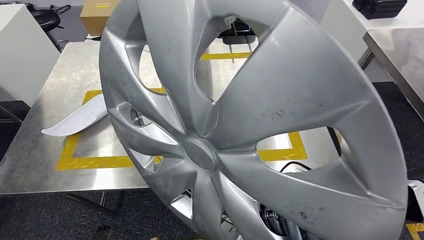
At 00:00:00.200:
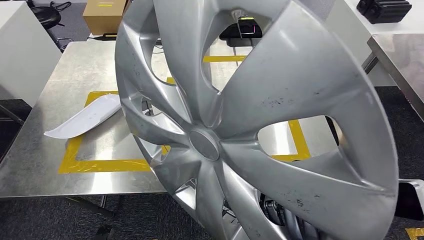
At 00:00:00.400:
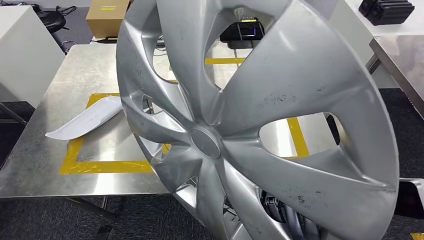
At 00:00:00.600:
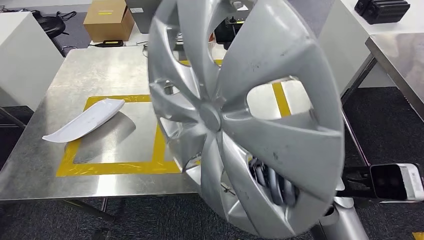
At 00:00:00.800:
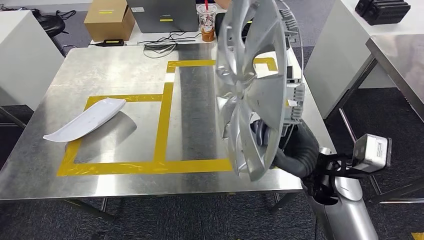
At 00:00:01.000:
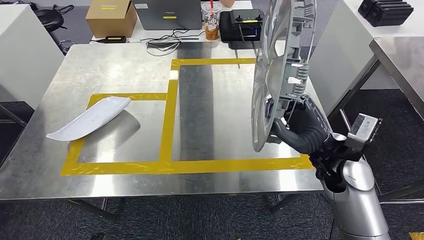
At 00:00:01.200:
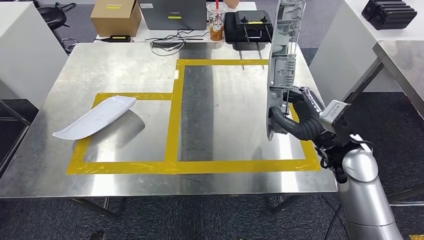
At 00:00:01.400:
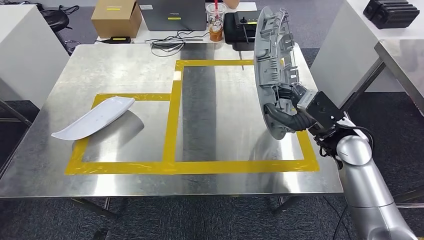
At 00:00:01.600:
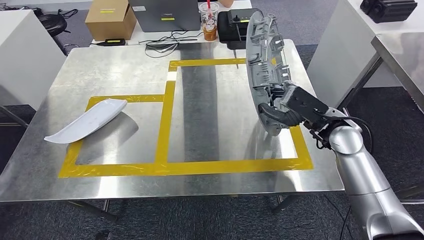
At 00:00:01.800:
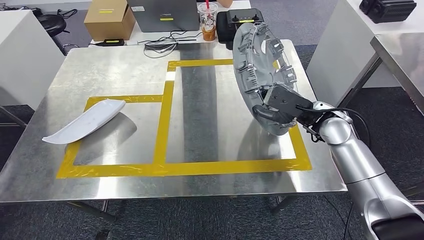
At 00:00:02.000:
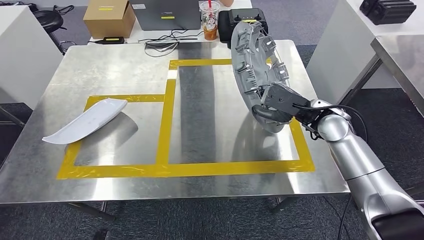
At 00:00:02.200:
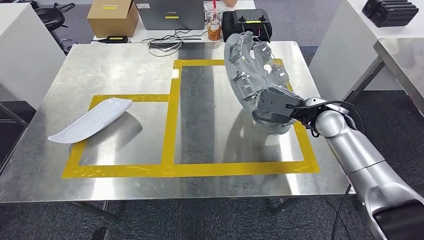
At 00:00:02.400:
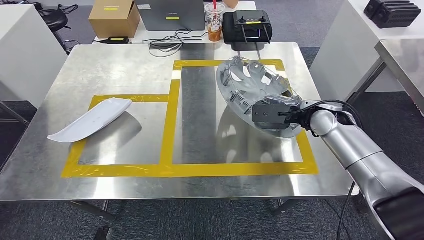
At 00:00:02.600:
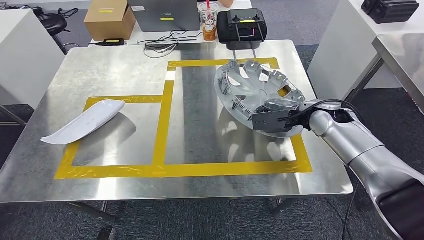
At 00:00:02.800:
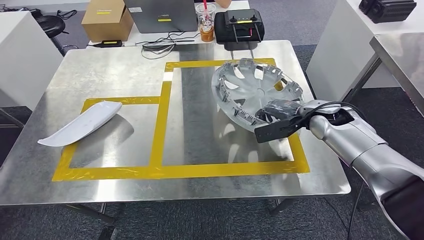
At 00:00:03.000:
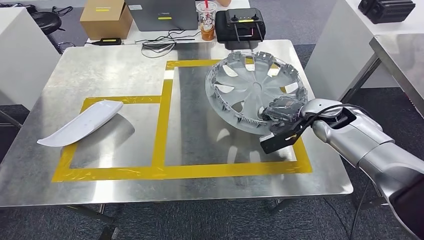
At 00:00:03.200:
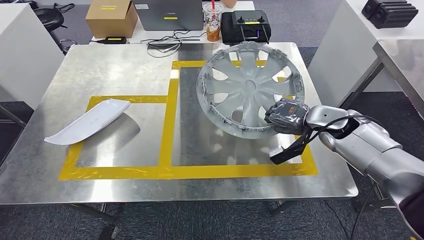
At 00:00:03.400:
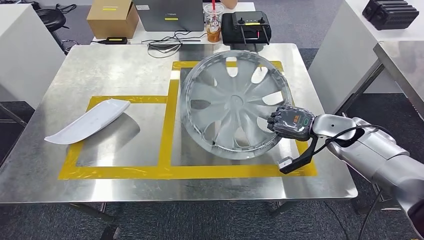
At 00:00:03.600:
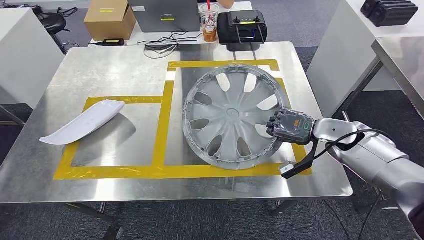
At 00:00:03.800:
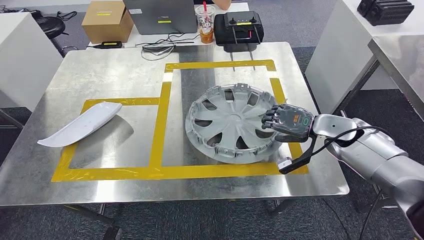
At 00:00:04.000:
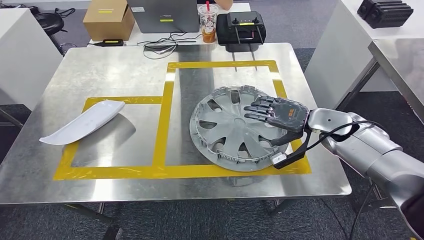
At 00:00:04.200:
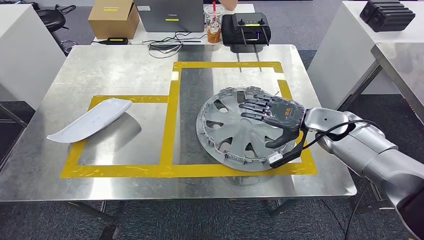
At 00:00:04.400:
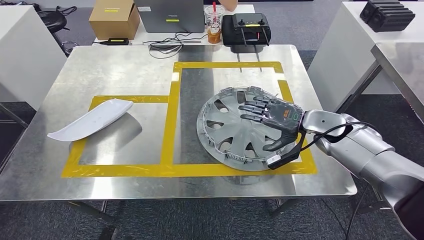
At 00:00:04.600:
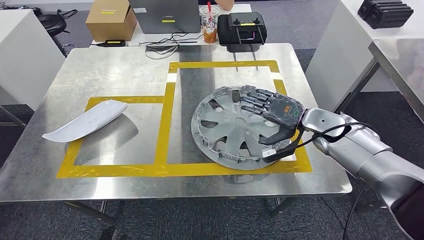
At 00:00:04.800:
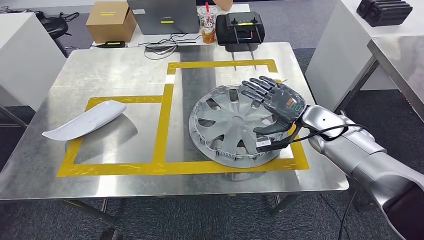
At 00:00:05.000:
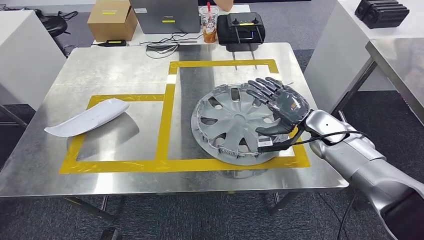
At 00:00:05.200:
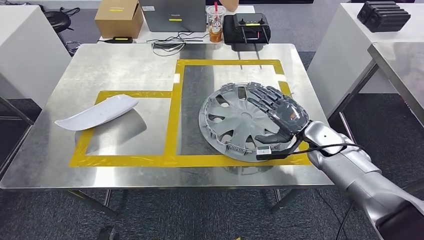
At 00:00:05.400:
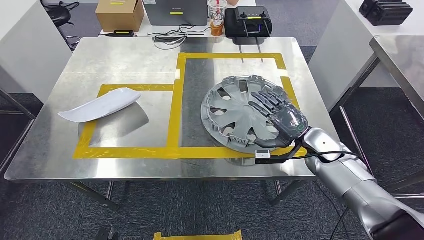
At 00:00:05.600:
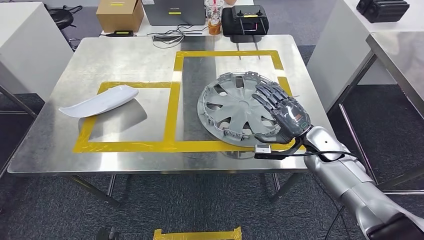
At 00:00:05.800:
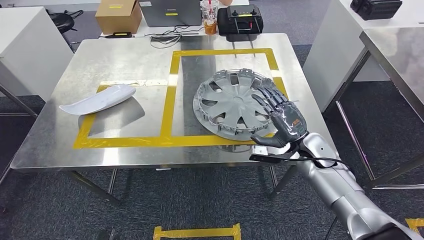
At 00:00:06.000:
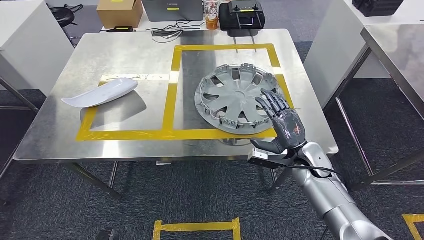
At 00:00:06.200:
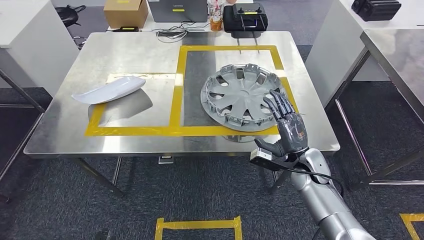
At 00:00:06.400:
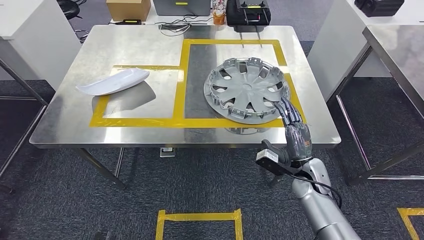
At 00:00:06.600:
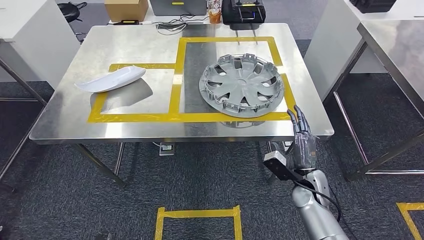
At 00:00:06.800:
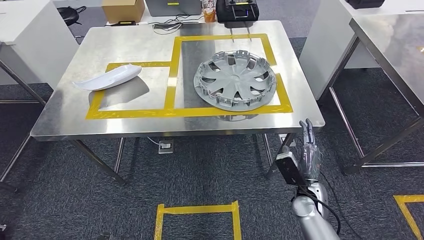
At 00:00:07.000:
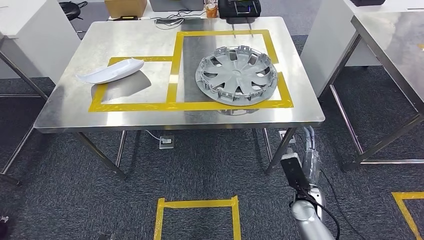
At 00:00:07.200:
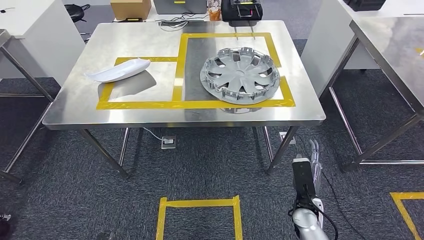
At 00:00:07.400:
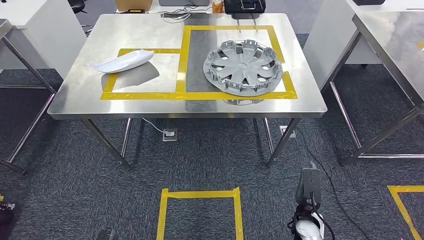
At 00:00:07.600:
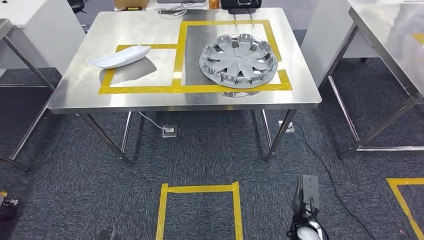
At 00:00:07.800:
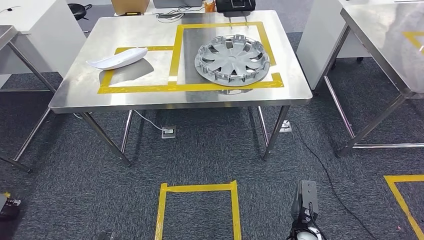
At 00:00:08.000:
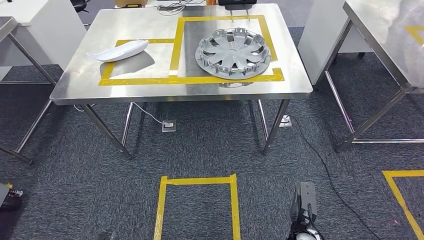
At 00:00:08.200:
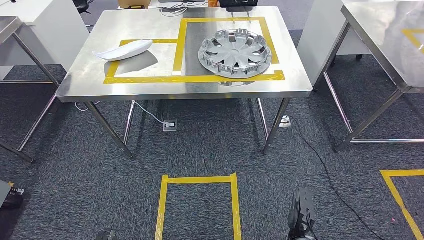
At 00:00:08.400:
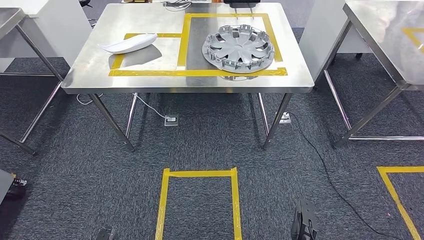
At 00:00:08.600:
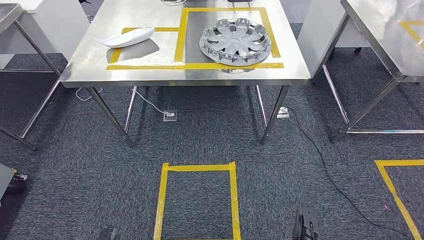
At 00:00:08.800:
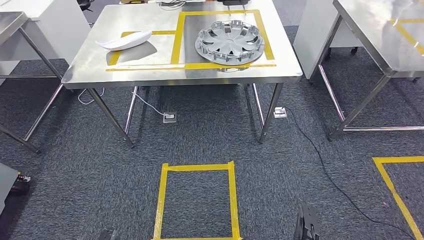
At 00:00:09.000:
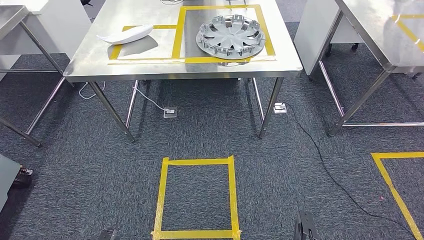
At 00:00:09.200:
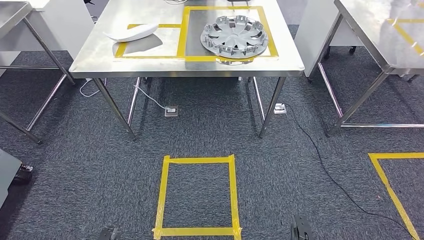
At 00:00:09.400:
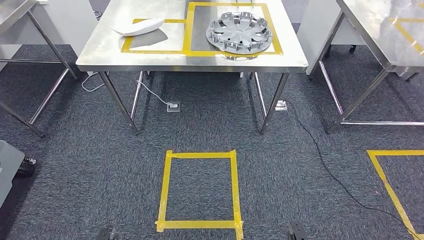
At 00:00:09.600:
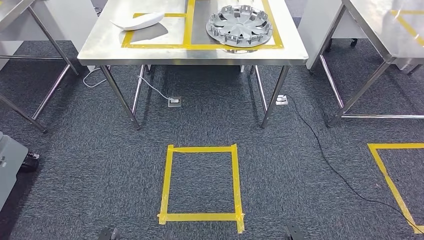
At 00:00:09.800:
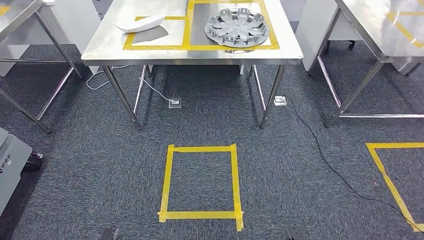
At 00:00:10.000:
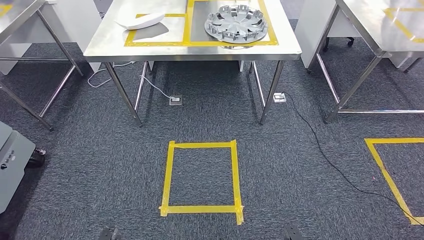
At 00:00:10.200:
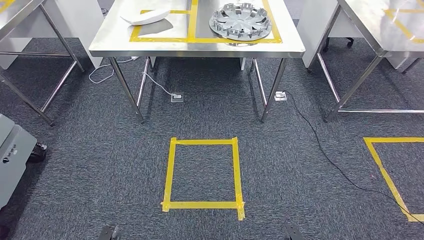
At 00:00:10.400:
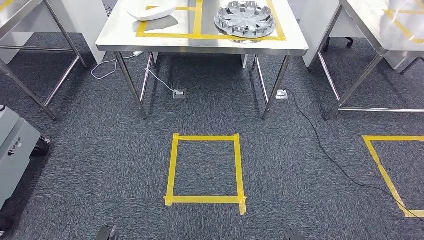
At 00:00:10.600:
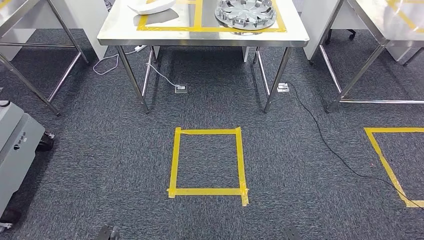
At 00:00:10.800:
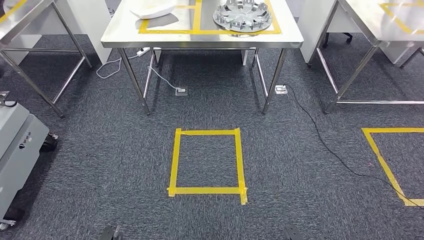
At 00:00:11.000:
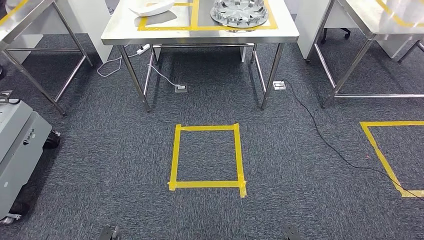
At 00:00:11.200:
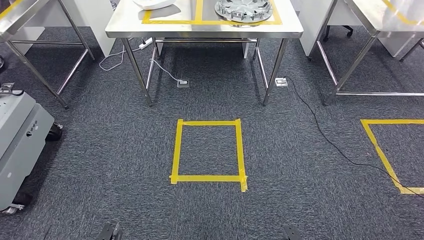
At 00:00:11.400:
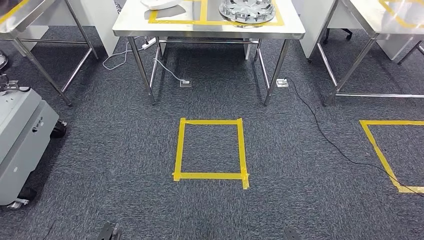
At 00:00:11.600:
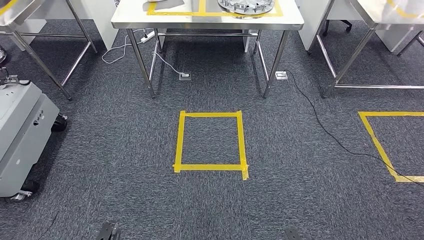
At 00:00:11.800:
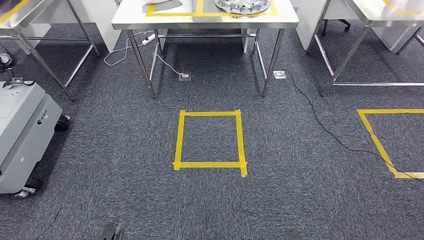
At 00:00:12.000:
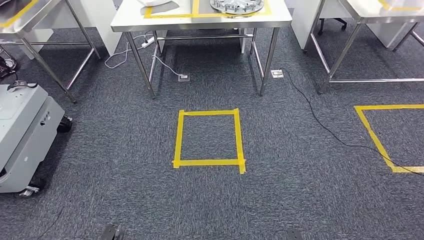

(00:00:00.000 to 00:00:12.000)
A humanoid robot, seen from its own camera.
Step, 00:00:00.000 - 00:00:04.000: Insert the small component into the corresponding slot on the workbench.
Step, 00:00:04.200 - 00:00:12.000: Return to the initial position at the workbench.
